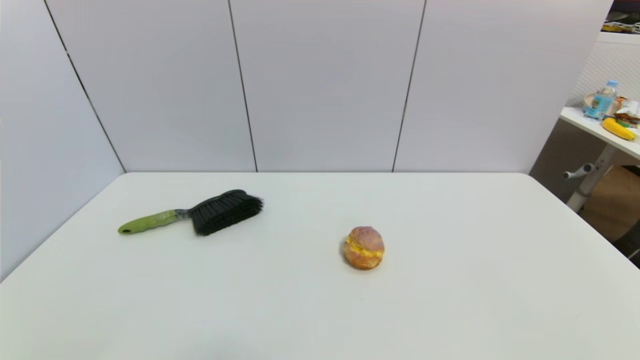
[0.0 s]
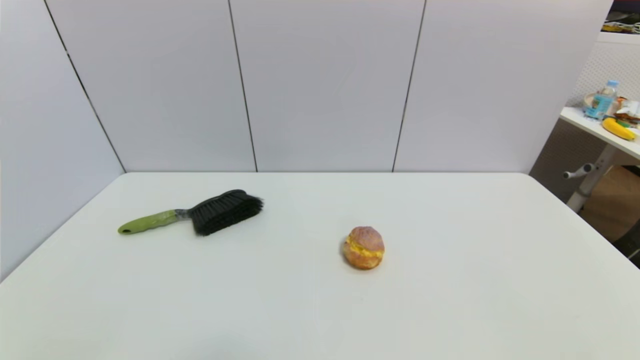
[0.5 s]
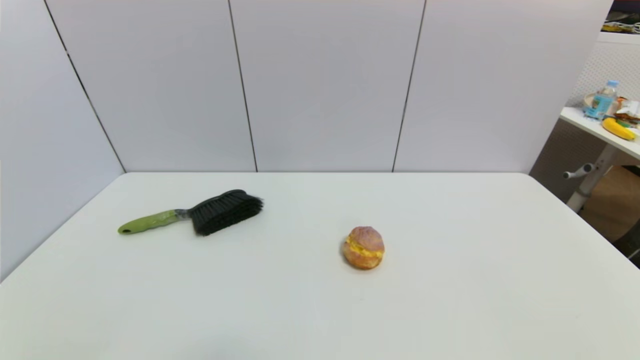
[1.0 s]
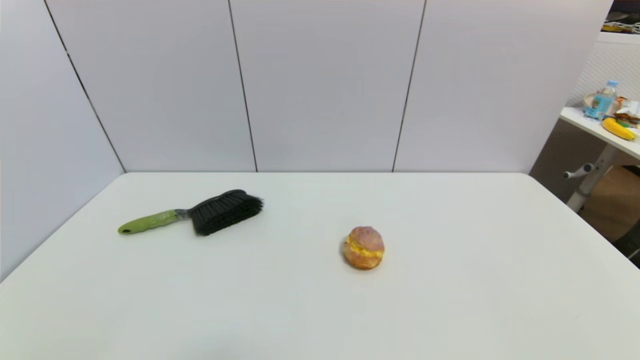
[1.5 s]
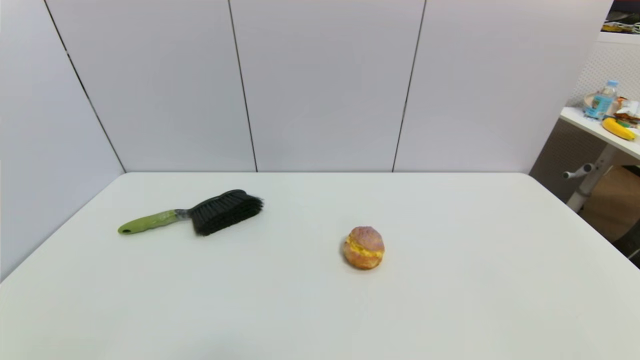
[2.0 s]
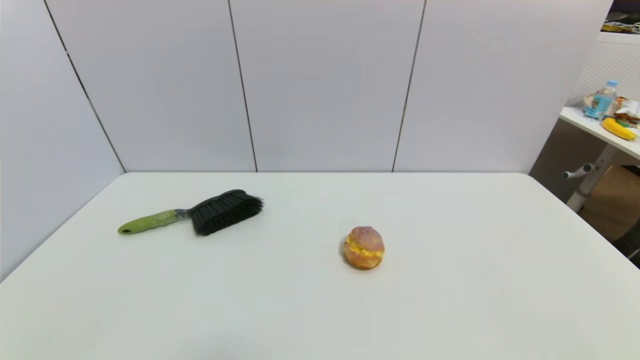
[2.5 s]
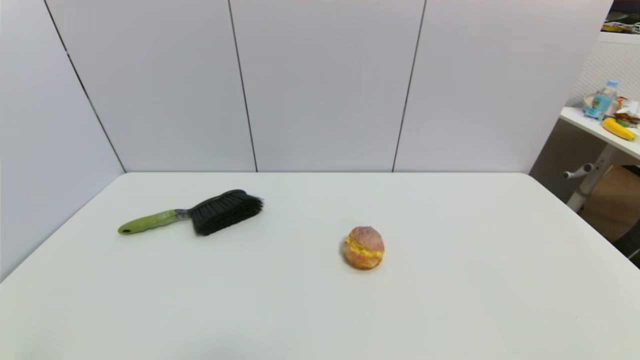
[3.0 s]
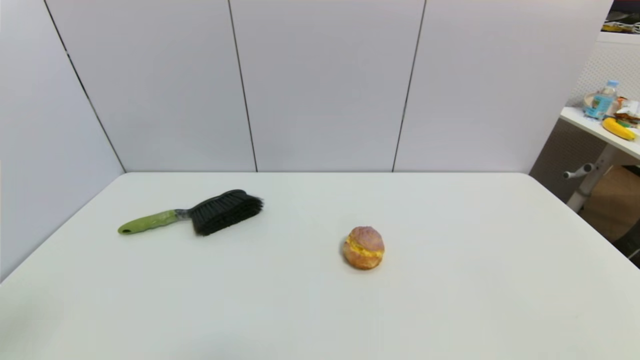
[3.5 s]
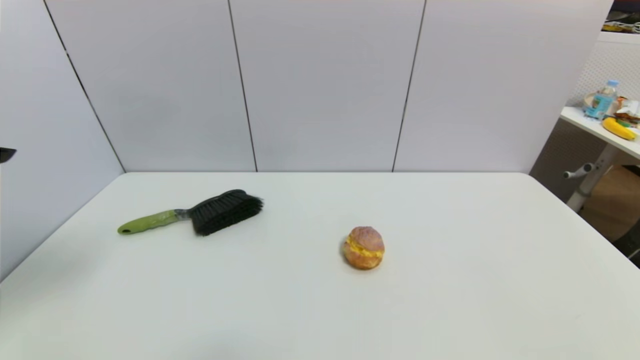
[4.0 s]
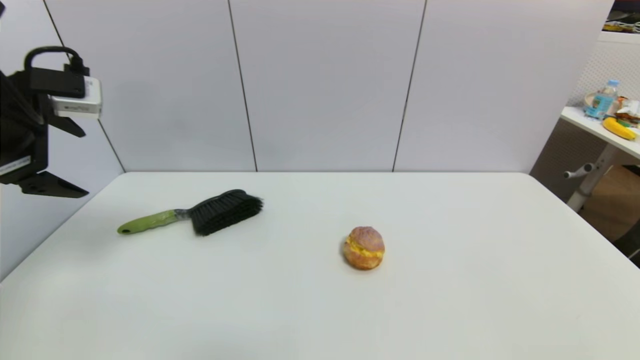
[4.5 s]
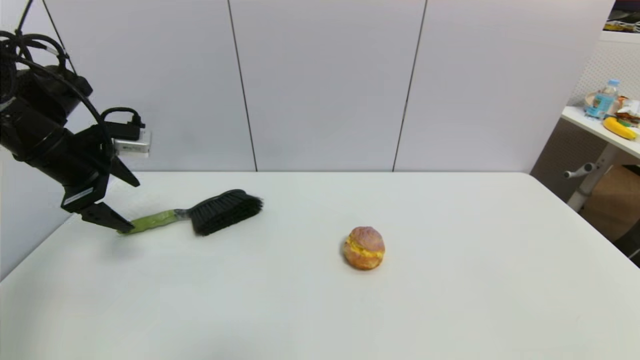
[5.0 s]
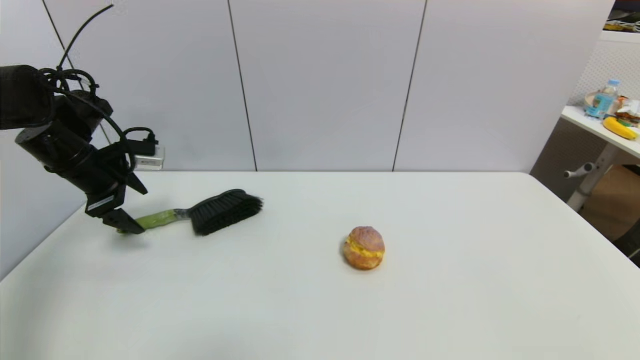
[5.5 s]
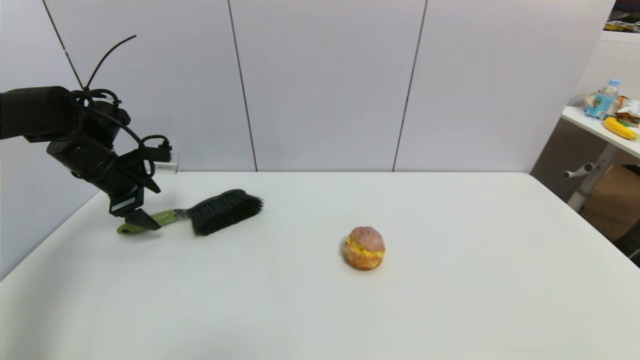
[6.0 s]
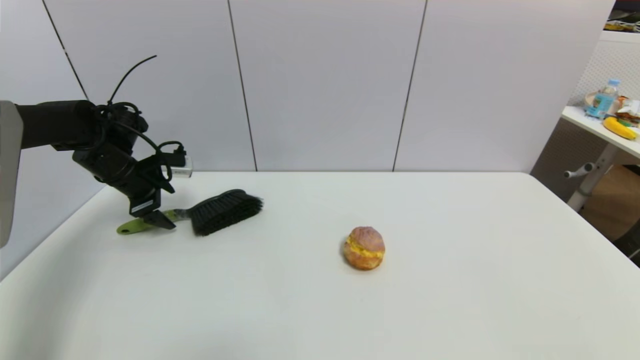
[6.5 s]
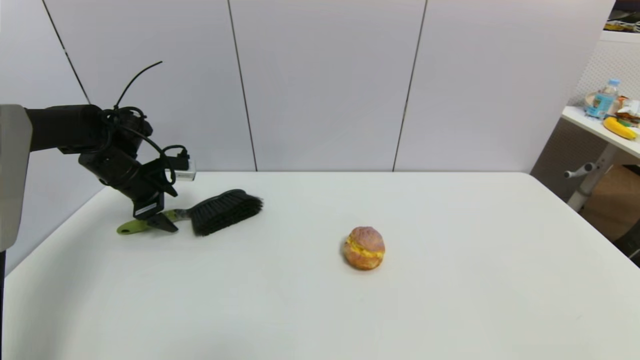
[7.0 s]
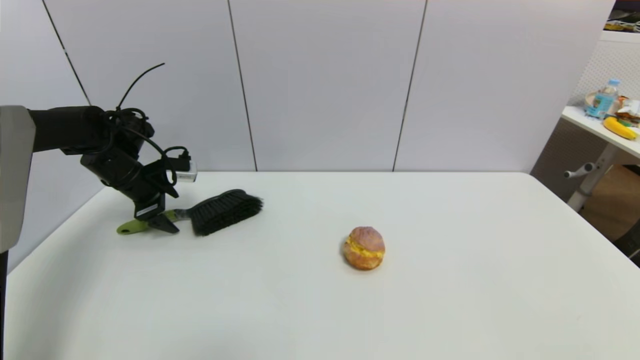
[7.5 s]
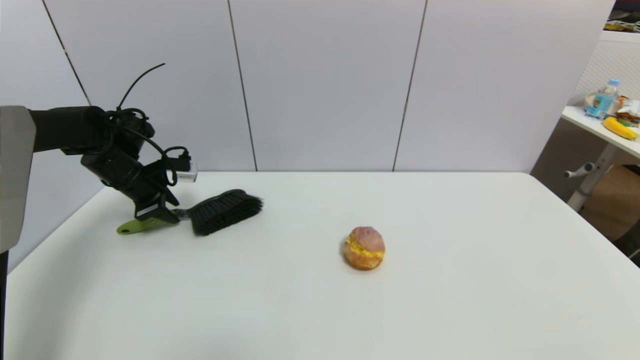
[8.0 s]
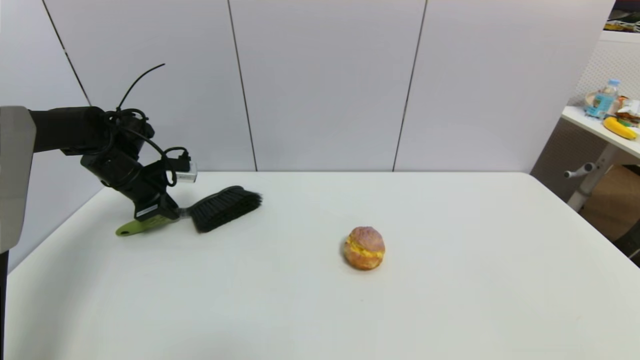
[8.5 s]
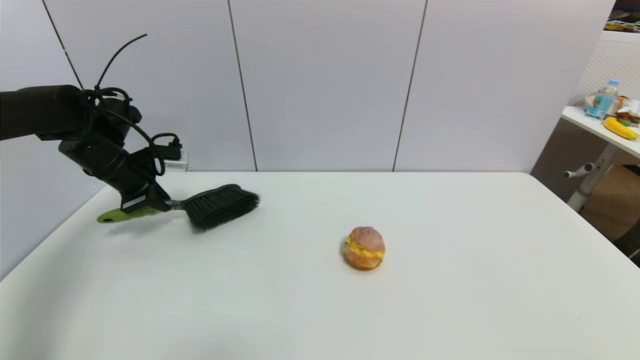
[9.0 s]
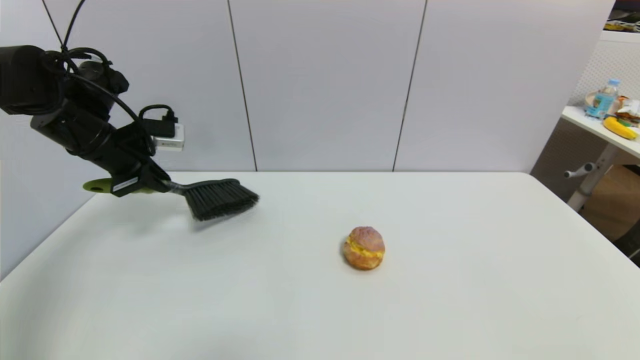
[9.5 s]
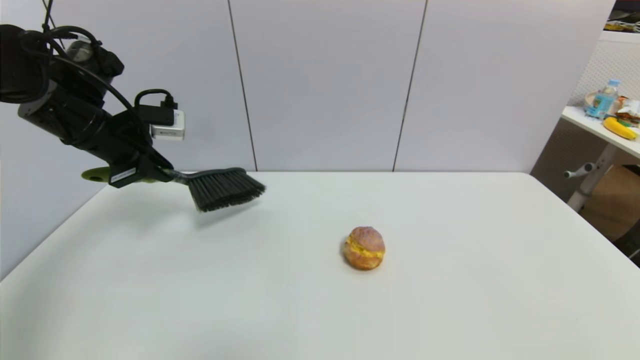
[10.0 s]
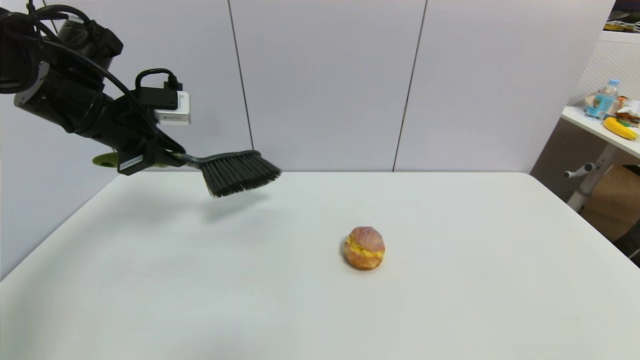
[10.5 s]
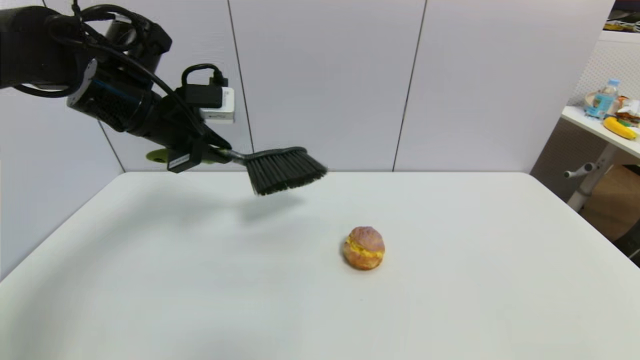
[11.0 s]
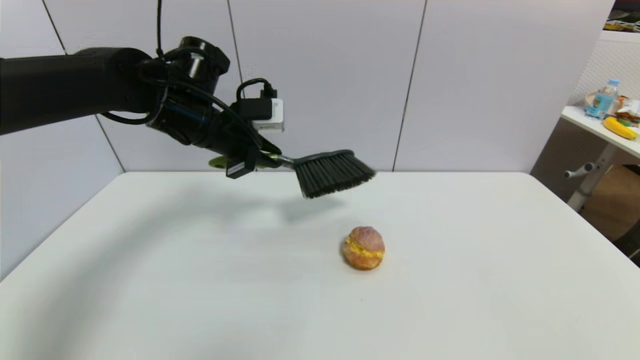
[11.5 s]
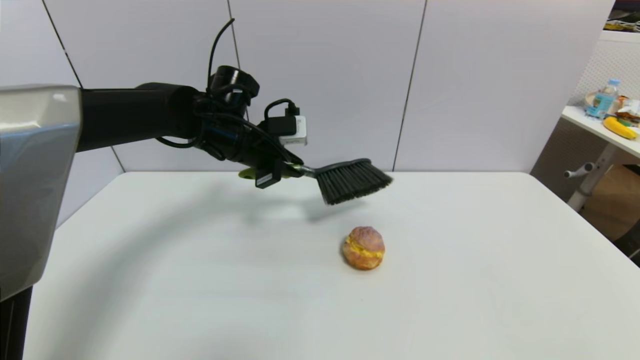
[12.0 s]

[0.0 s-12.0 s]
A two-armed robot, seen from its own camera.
Task of the whole recording: put the brush in the designated position.
Step, 4.0 to 10.0 s: Grasp the brush with left gripper.
0.0 to 2.0 s: Both grippers stay about where they are.
2.0 to 4.0 s: The left gripper is displaced upward and forward by some 35 cm.
4.0 to 6.0 s: The left gripper goes approximately 35 cm forward and downward.
6.0 to 8.0 s: The left gripper closes up.
8.0 to 10.0 s: The left gripper heads upward and backward, covering approximately 15 cm, and closes.
10.0 to 12.0 s: The left gripper heads to the right, covering approximately 15 cm.

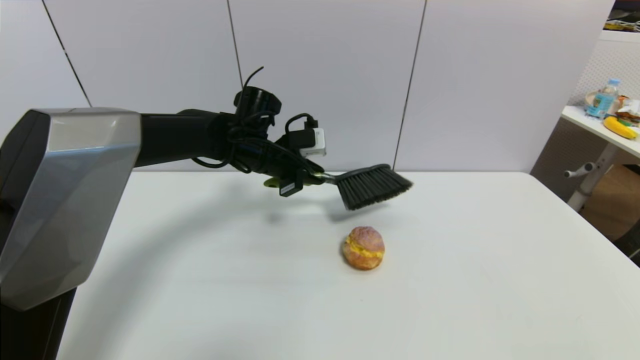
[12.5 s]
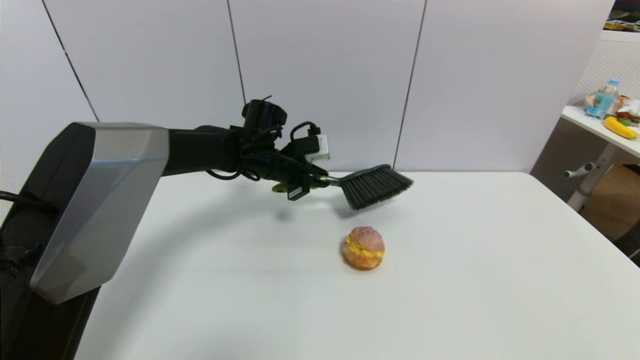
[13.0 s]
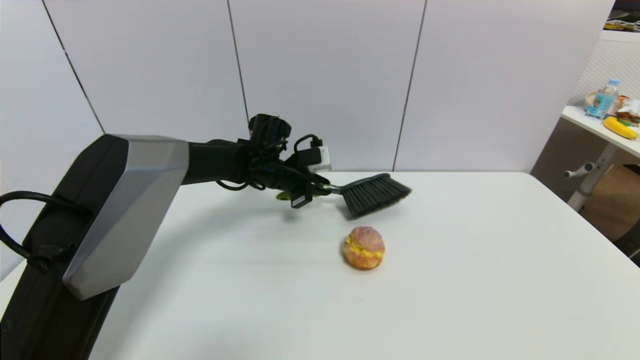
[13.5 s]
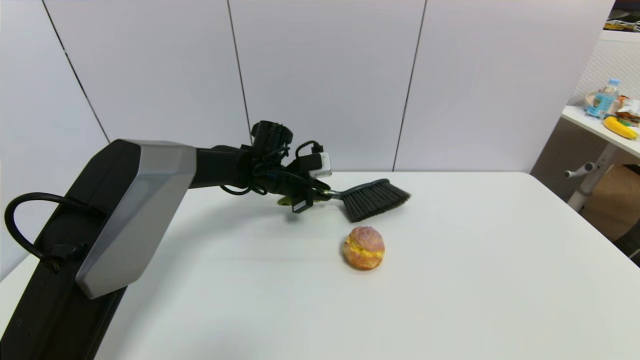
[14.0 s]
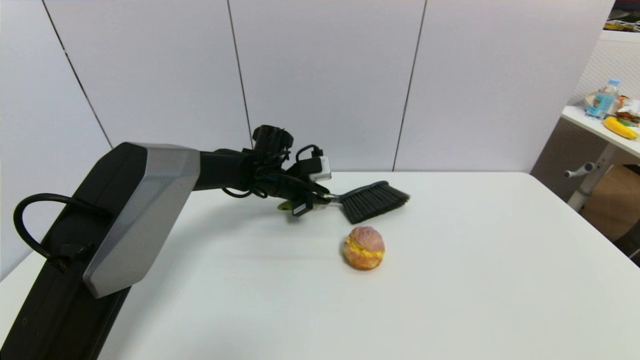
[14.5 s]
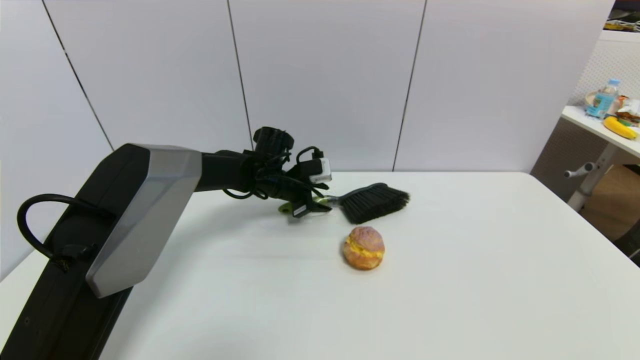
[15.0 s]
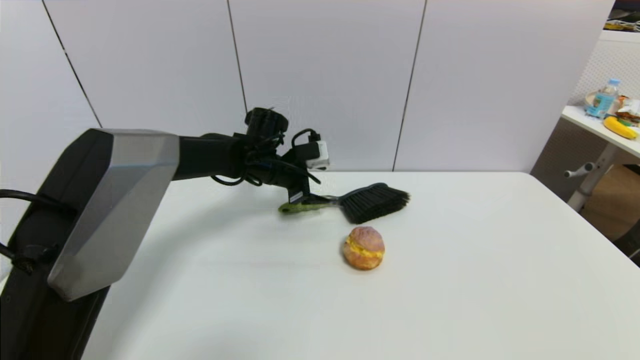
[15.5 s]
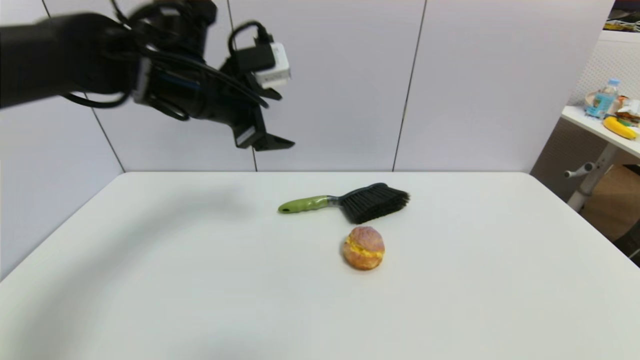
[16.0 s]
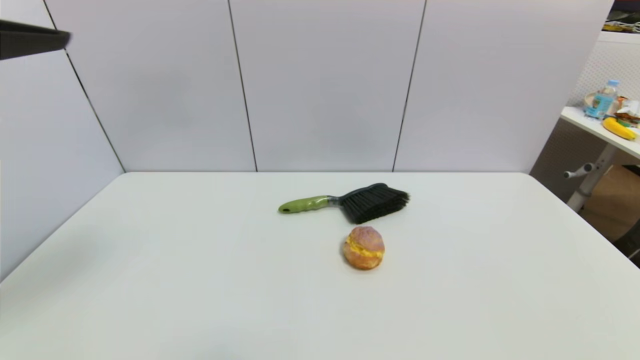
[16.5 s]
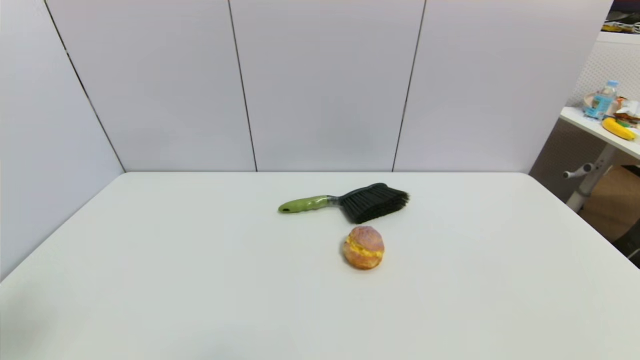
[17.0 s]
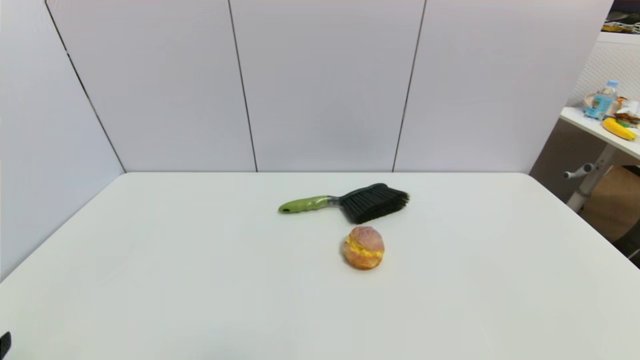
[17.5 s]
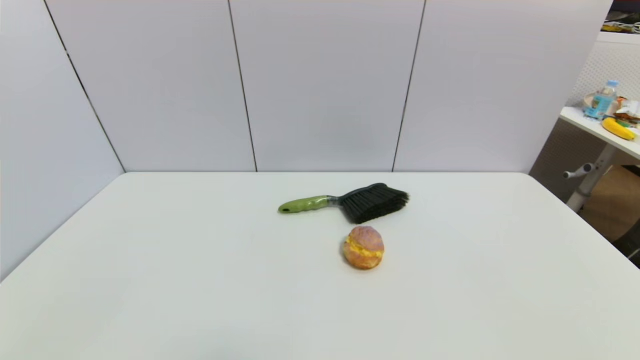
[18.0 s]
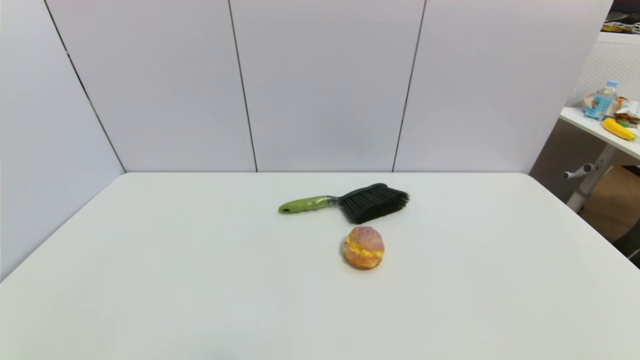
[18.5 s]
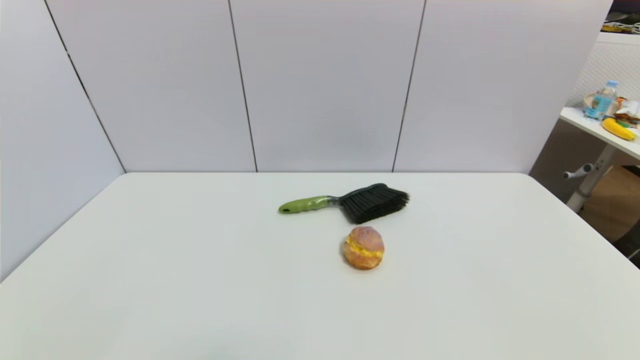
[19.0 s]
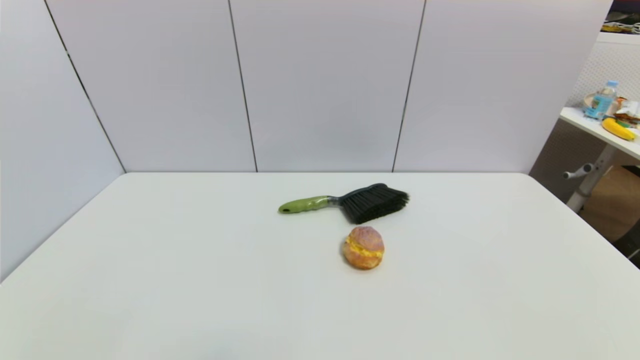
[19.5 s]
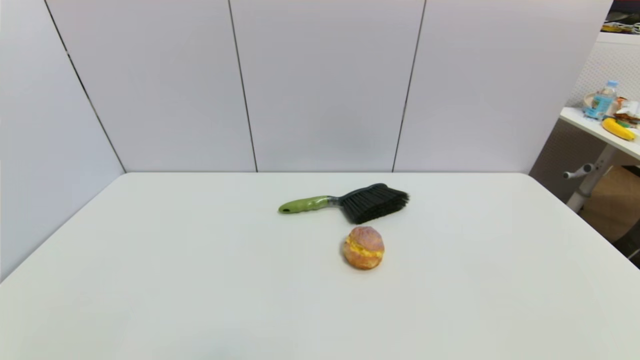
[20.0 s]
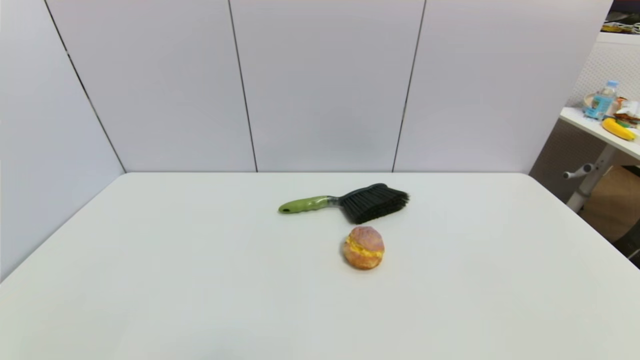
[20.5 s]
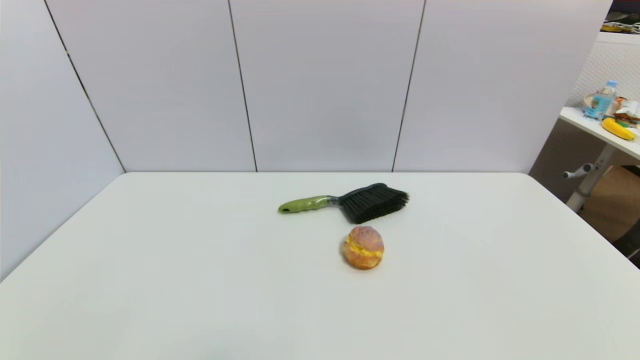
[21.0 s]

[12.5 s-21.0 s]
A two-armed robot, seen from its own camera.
Task of the whole recording: put the brush in the designated position.
Step, 12.5 to 15.0 s: Place the brush on the table with left gripper.
12.5 to 14.5 s: The left gripper goes approximately 10 cm downward.
14.5 to 16.5 s: The left gripper is displaced backward, upward and to the left by roughly 50 cm, and opens its fingers.
16.5 to 19.0 s: The left gripper travels downward by some 35 cm.
19.0 to 21.0 s: Neither gripper changes place.
